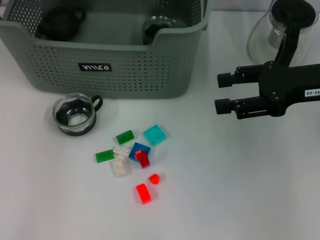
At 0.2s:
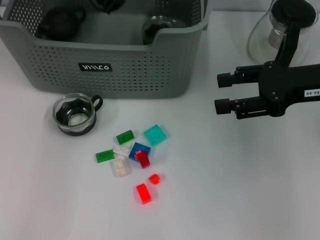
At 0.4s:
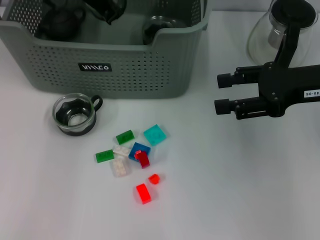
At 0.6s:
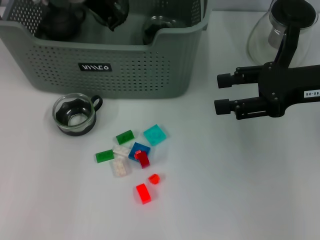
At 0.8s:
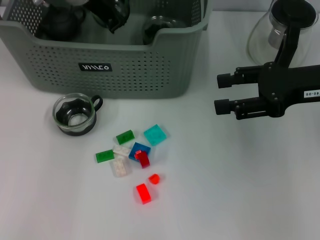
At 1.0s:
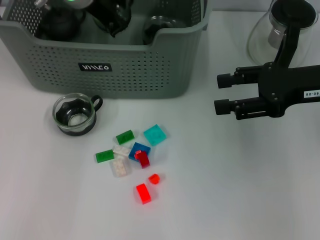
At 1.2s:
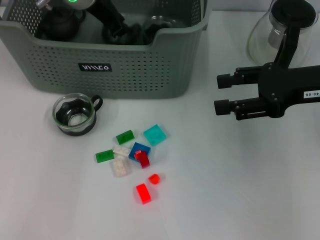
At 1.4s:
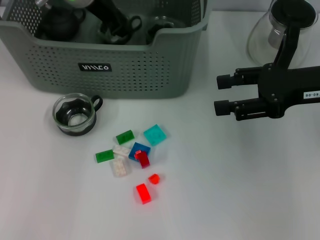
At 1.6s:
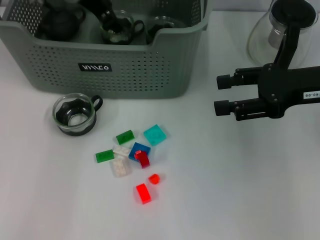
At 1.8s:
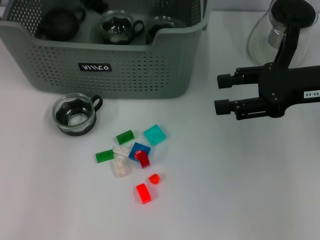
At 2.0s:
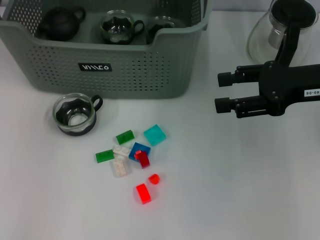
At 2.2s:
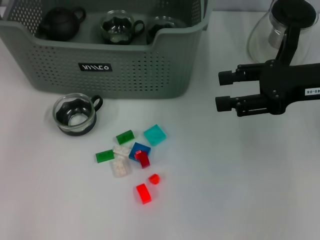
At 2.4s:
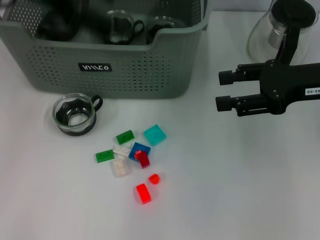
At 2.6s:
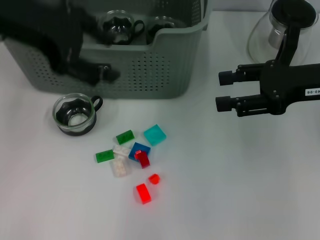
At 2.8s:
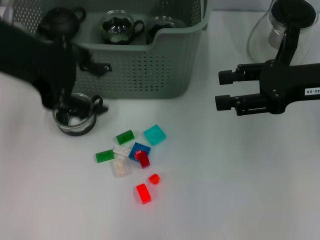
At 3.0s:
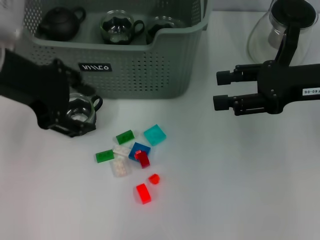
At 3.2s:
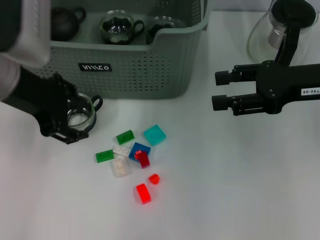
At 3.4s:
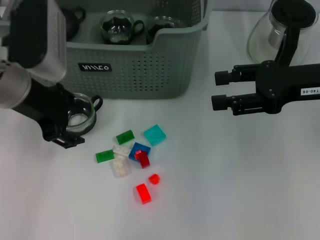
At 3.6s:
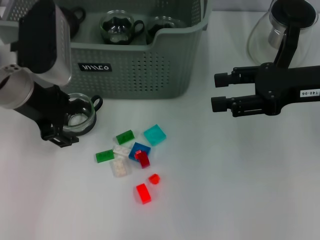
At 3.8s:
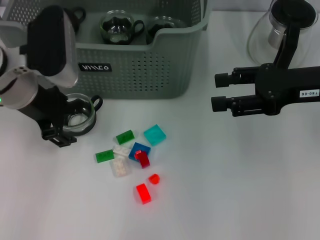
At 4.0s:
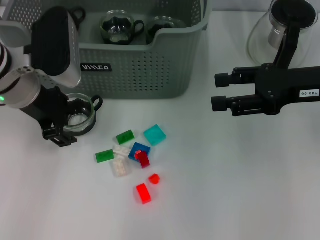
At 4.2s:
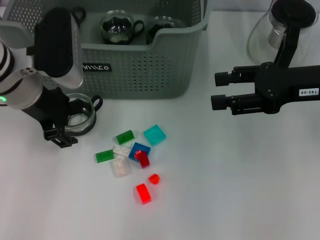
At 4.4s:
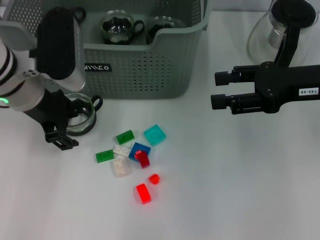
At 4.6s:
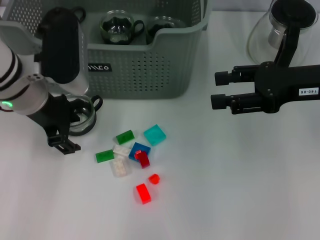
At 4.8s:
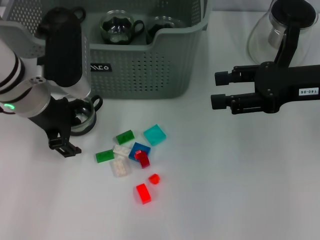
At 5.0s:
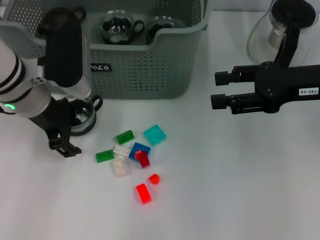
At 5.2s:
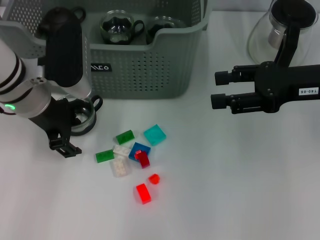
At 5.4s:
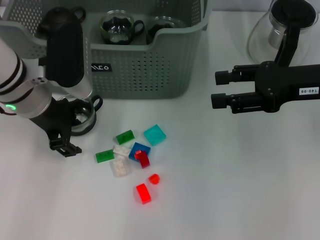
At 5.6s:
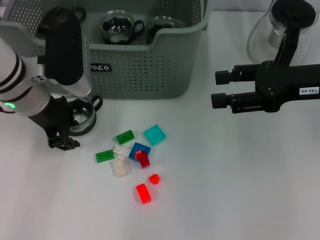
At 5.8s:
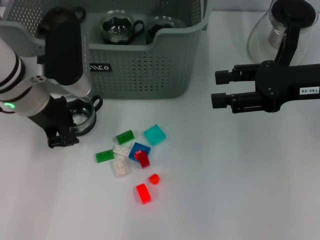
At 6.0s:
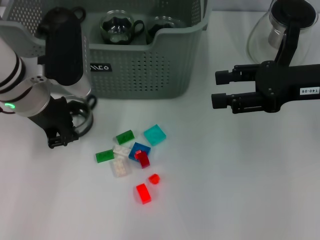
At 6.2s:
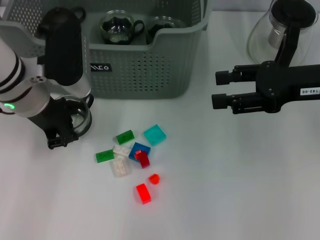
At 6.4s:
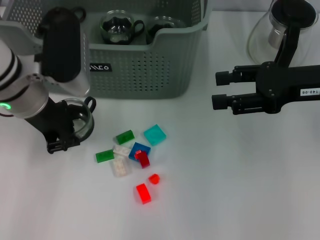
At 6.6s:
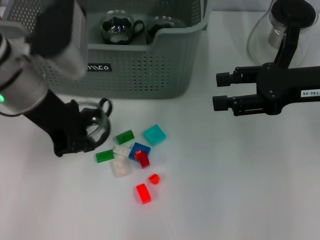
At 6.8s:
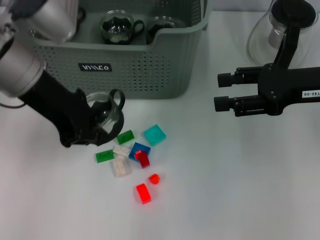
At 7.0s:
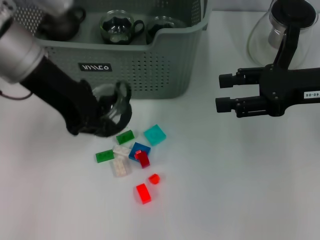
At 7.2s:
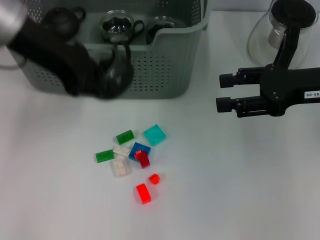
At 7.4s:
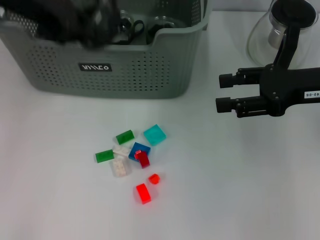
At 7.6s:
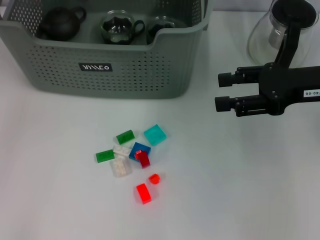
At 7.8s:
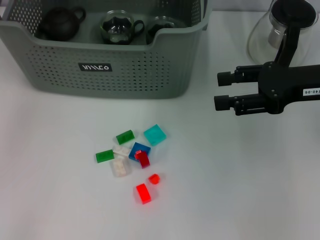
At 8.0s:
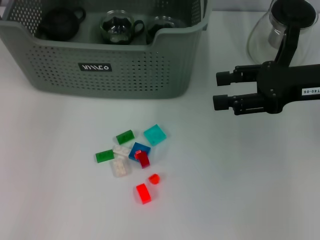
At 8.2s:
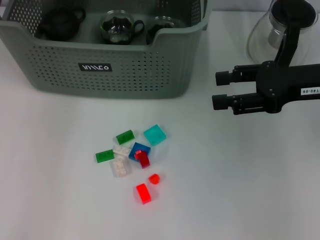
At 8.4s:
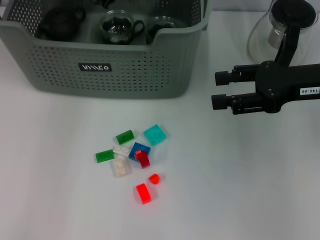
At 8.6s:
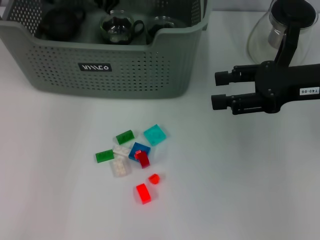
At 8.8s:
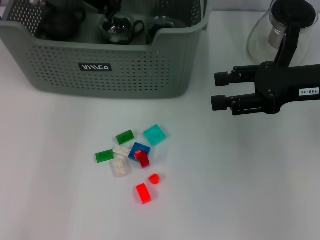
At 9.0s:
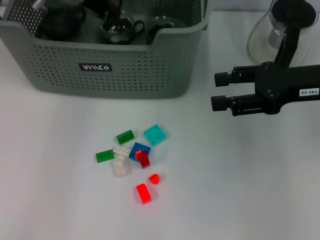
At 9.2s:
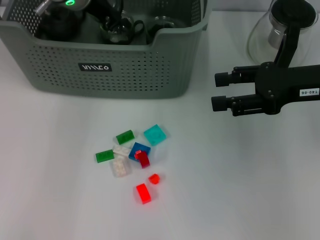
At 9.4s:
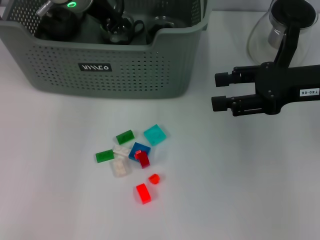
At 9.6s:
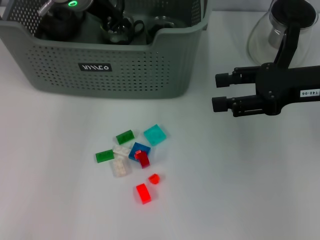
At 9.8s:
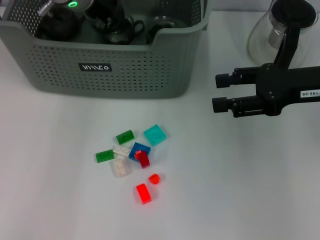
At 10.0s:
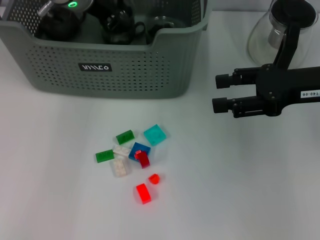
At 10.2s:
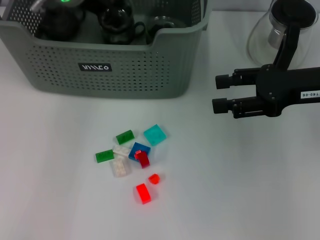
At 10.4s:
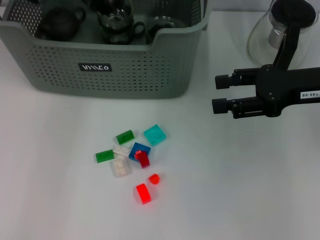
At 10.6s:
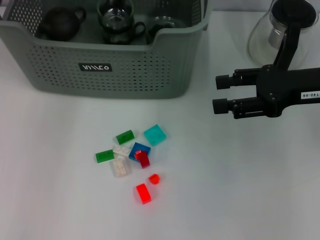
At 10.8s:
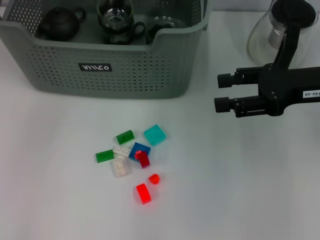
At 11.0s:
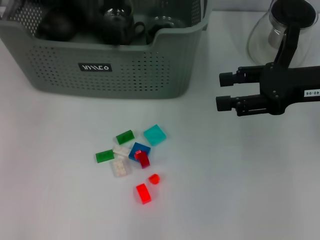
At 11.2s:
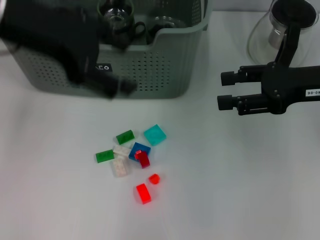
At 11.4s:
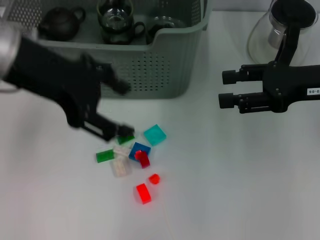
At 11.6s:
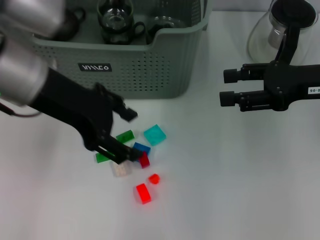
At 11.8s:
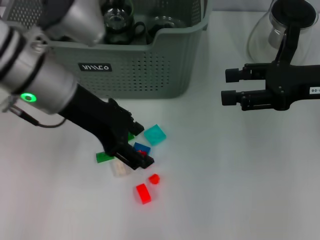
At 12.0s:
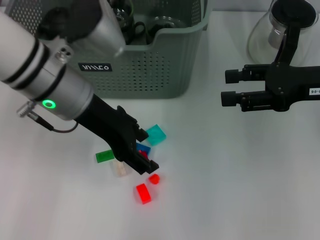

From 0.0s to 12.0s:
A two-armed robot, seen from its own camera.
Task of the whole recording: pick up the teacup on the table and place it into the storage bin, pick up the block on the table and place it into the storage bin.
Step, from 1.8s to 6.2s: Grasp the cup with left gripper.
Step, from 6.4s to 10.4s: Place the cup in the storage box with left gripper.
From 0.0s to 1.6s: The left gripper shifts by approximately 5 cm.
From 1.6s to 3.0s: The left gripper goes roughly 15 cm backward.
From 3.0s to 4.4s: The left gripper travels downward by approximately 10 cm.
From 4.4s to 6.0s: The left gripper closes its fingers.
From 6.0s to 7.6s: The left gripper heads upward, covering some 15 cm.
From 7.6s to 9.0s: The left gripper heads downward, to the right and forward, covering approximately 15 cm.
From 9.0s to 10.4s: The left gripper opens.
From 10.4s to 12.0s: The left gripper travels backward by roughly 15 cm.

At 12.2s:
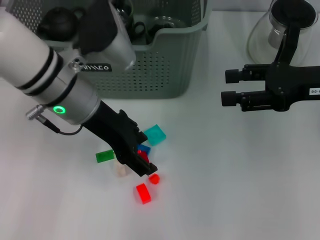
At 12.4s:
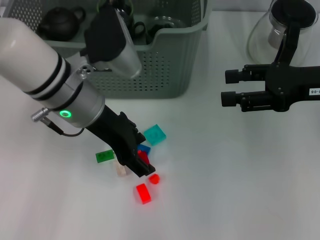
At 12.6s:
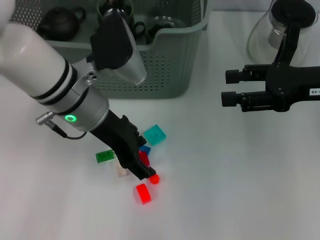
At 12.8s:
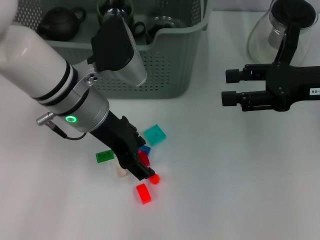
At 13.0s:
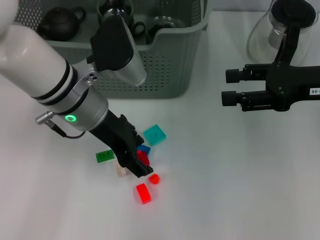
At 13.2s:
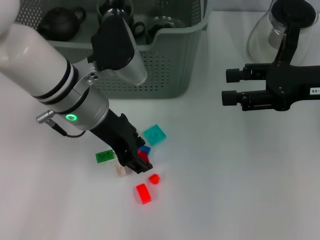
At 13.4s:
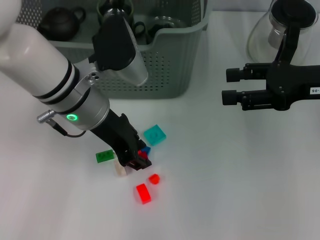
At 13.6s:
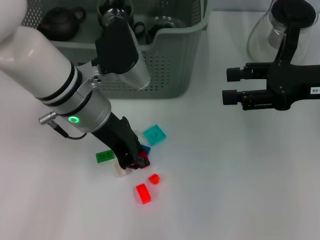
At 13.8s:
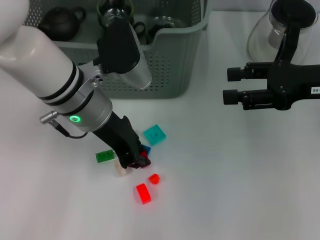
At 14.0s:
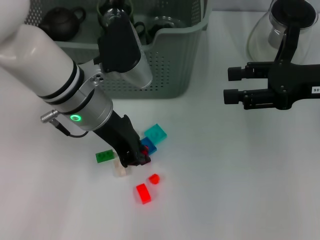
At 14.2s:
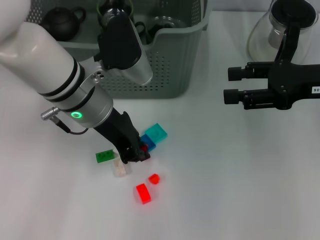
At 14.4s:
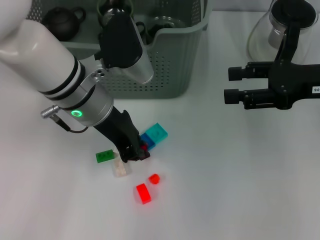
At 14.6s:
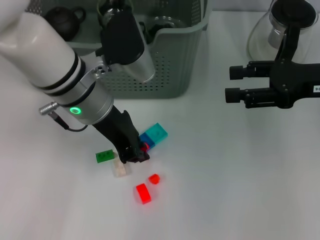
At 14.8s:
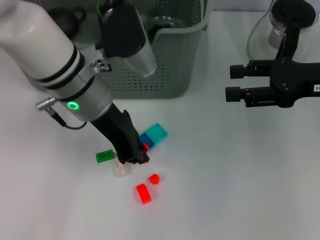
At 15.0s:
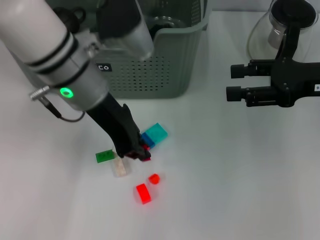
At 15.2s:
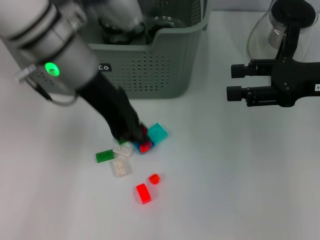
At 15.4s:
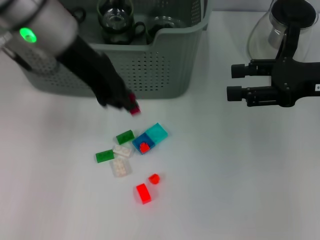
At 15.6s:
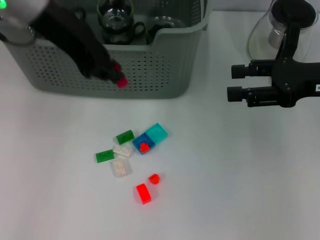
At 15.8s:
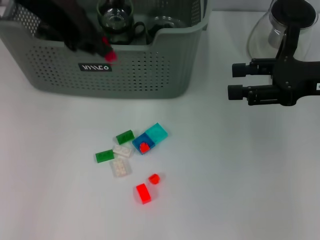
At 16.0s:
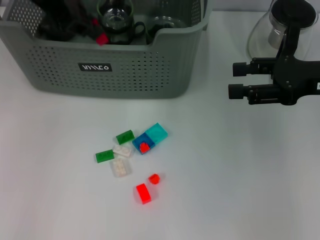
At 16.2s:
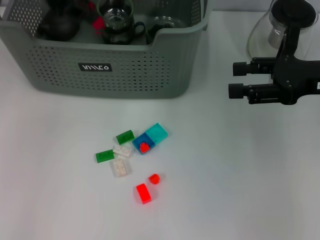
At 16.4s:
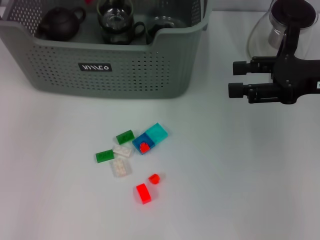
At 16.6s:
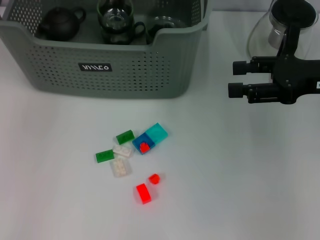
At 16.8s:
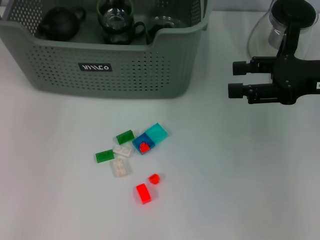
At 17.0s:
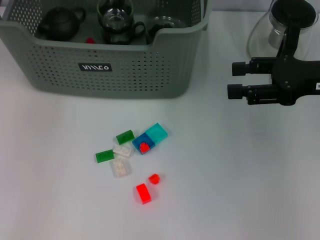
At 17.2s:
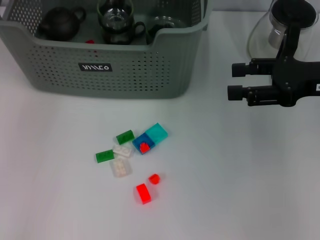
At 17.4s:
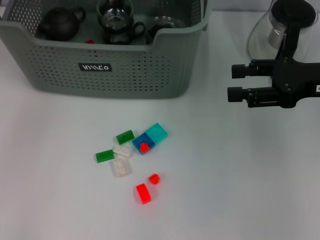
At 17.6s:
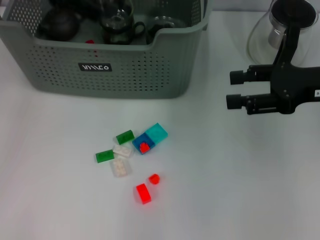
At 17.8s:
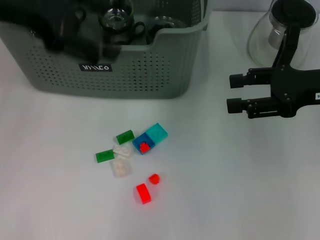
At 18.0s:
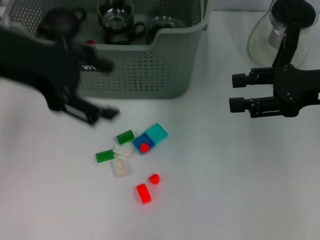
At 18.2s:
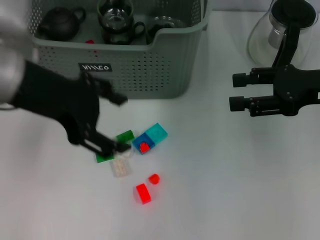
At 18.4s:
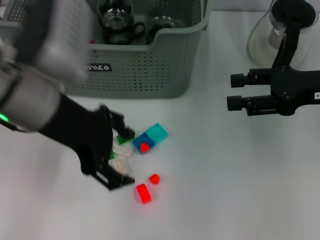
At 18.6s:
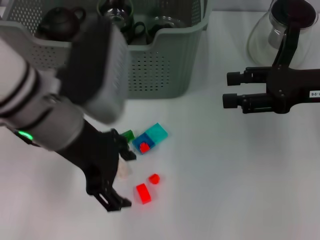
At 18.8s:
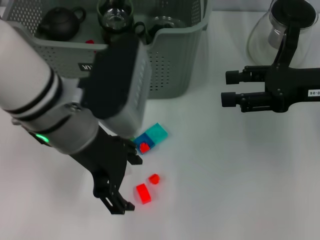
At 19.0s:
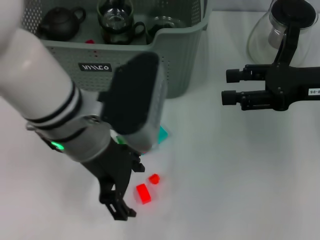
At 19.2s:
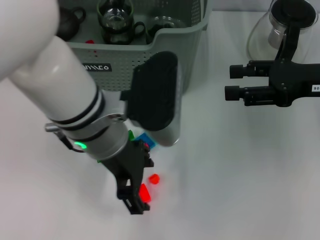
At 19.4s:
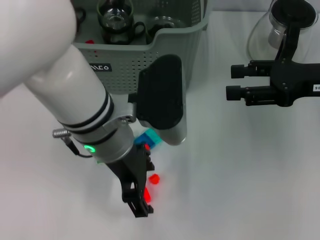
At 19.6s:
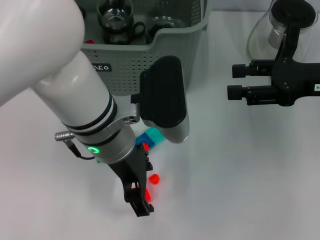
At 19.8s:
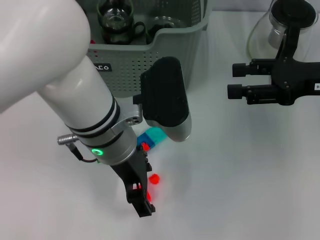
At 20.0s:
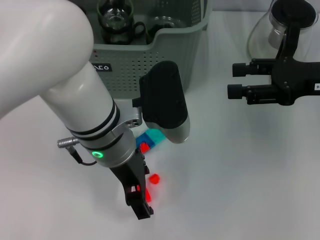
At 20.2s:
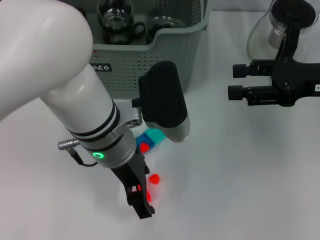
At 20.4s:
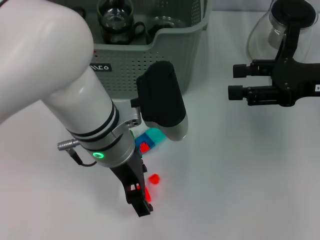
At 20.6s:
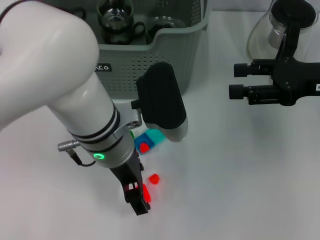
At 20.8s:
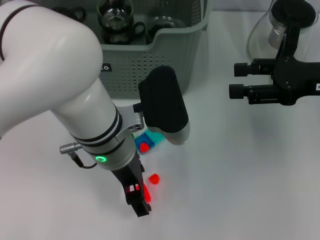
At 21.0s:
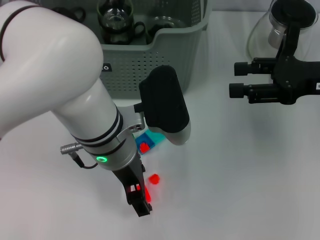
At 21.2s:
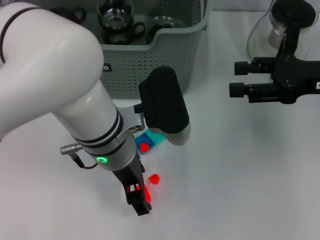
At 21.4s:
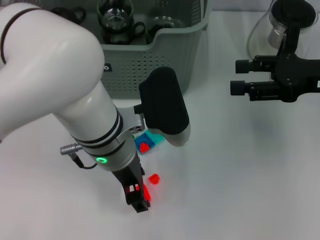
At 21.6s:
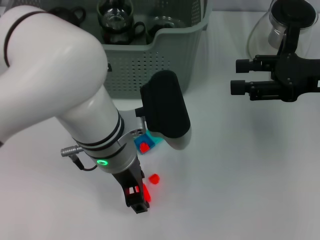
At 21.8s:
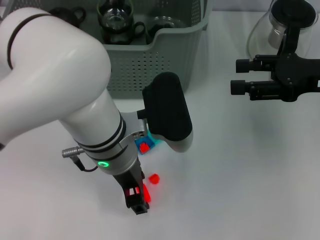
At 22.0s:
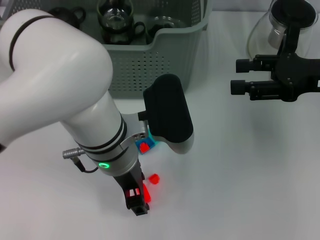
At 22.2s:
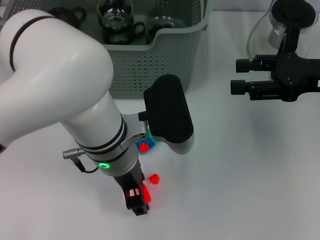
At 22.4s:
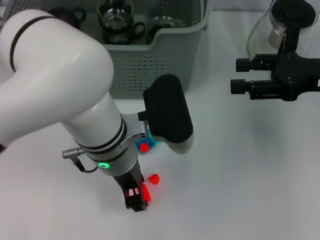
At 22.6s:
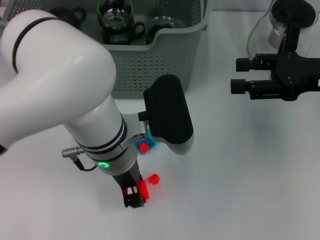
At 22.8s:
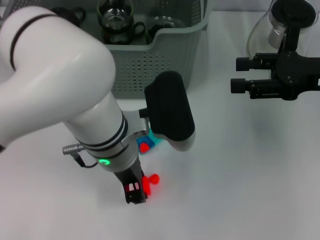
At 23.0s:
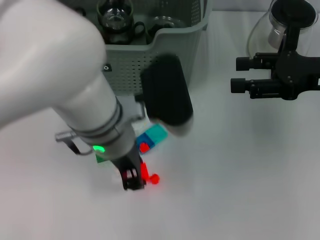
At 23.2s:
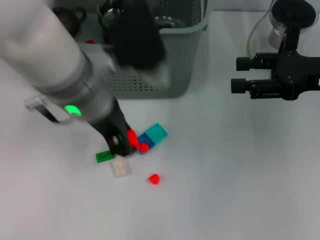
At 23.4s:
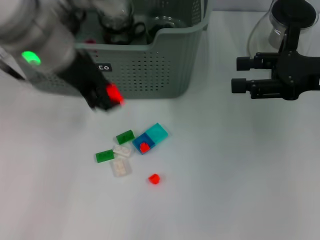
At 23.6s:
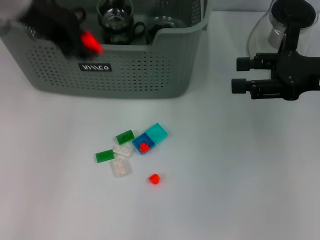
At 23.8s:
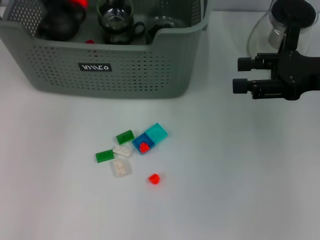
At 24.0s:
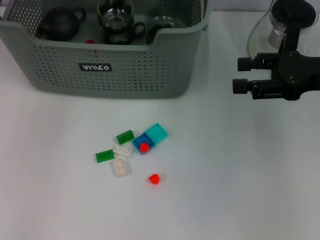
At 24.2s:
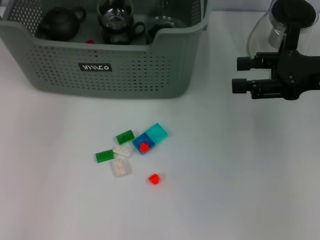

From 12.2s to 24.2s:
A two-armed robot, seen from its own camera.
Task of the whole recording: pick up the teacup on the table and place it into the storage bin, pick up the block on the table and place it into the storage bin.
Step, from 12.2s to 14.0s: Grasp the red block with left gripper.
Step, from 14.2s to 17.0s: Place the red block in the storage box with left gripper.
Step, from 17.4s to 22.4s: Grasp the orange block with left gripper.
From 12.2s to 13.8s: The left gripper closes up.
From 13.8s to 15.2s: The left gripper is displaced upward by roughly 10 cm.
From 15.2s to 16.6s: The left gripper goes approximately 15 cm forward, to the left and upward.
From 16.6s to 18.2s: The left gripper is displaced backward and downward by approximately 15 cm, and opens.
From 18.2s to 19.8s: The left gripper travels to the right and downward by some 15 cm.
From 19.8s to 21.2s: There are only small adjustments of the grippers.
From 21.2s to 22.6s: The left gripper closes.
From 22.6s to 24.2s: The left gripper shifts roughly 30 cm upward, forward and to the left.
